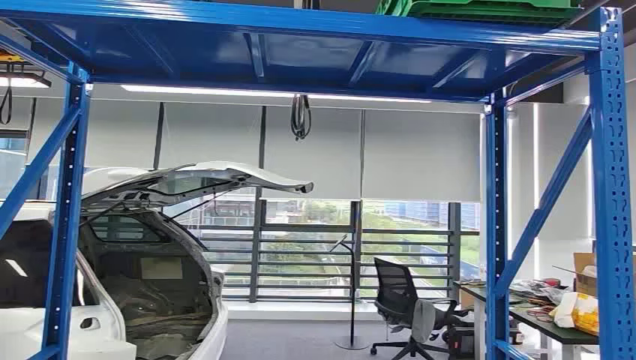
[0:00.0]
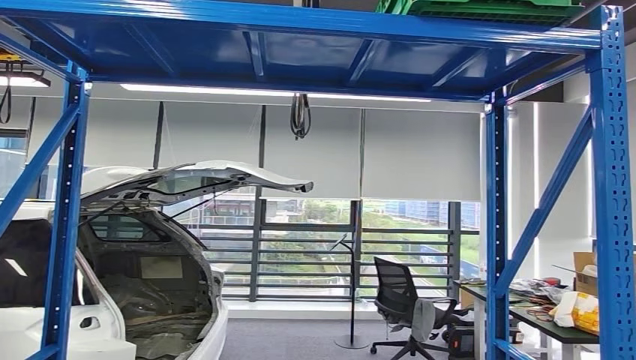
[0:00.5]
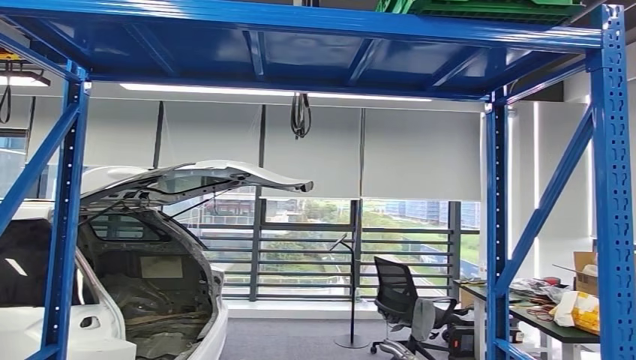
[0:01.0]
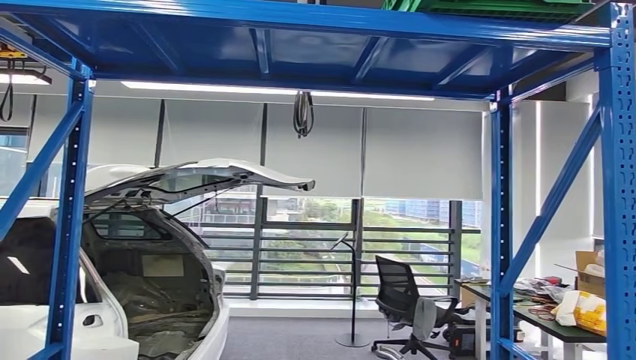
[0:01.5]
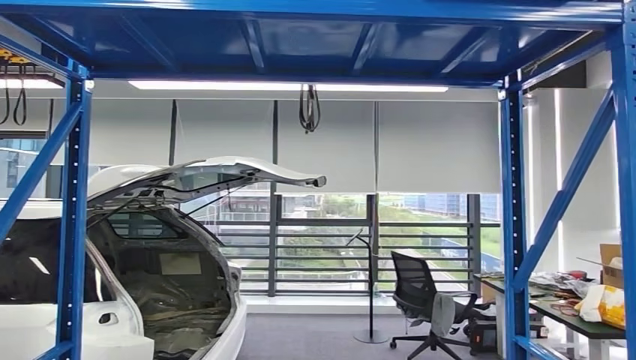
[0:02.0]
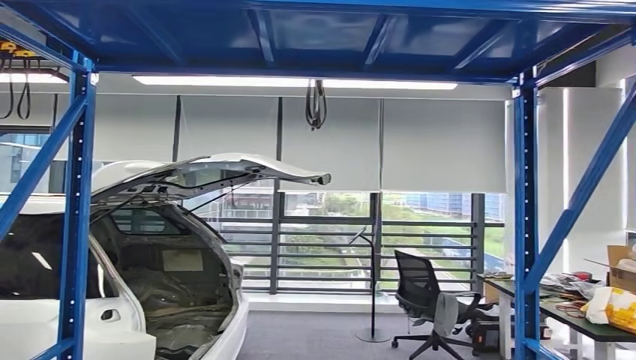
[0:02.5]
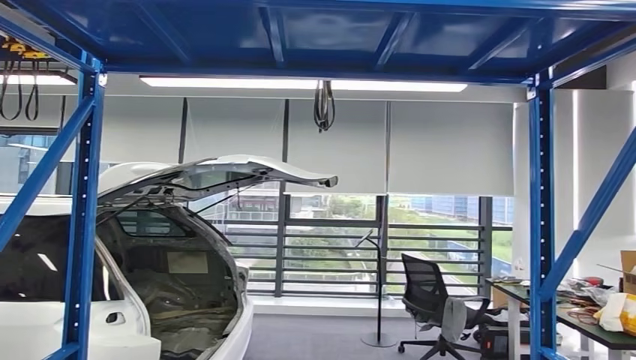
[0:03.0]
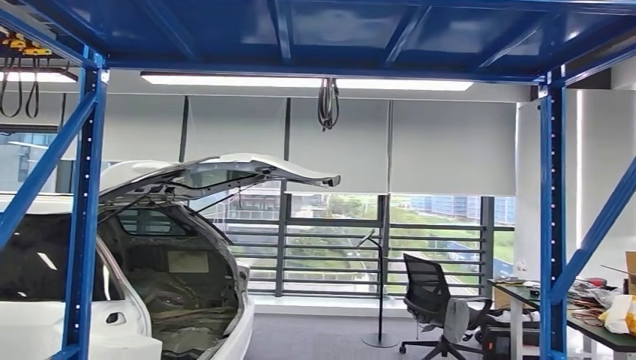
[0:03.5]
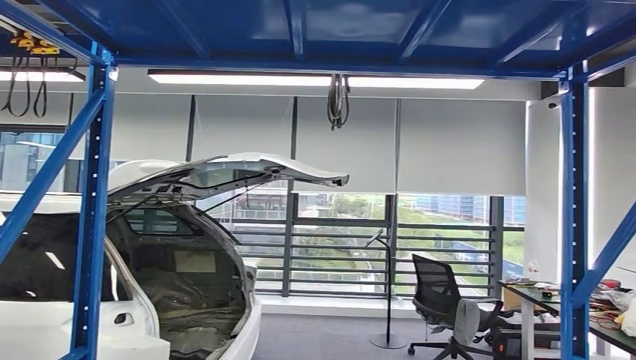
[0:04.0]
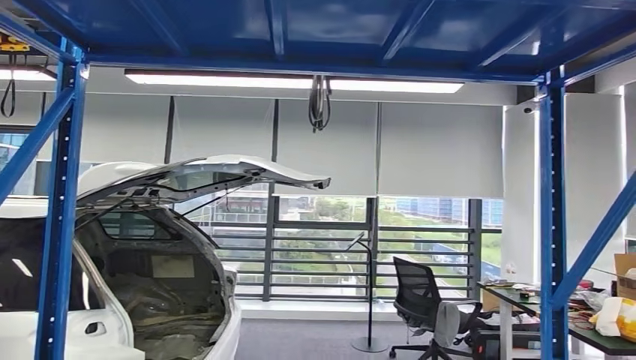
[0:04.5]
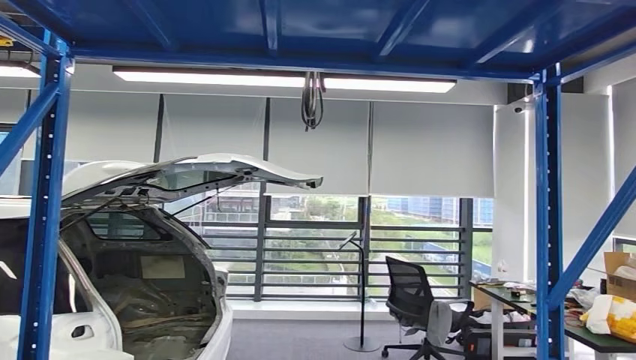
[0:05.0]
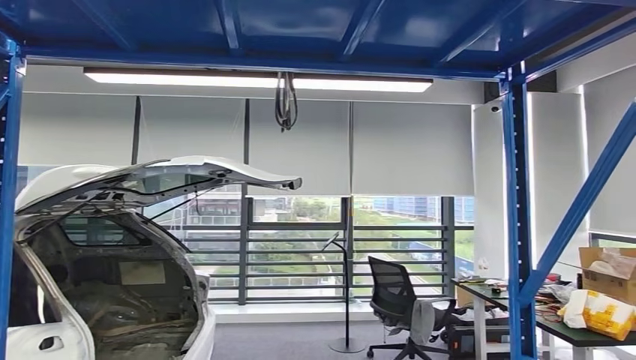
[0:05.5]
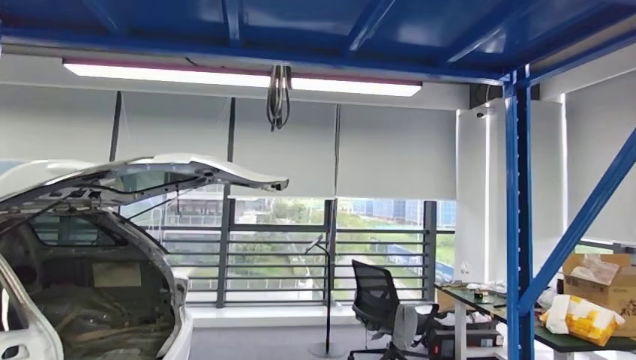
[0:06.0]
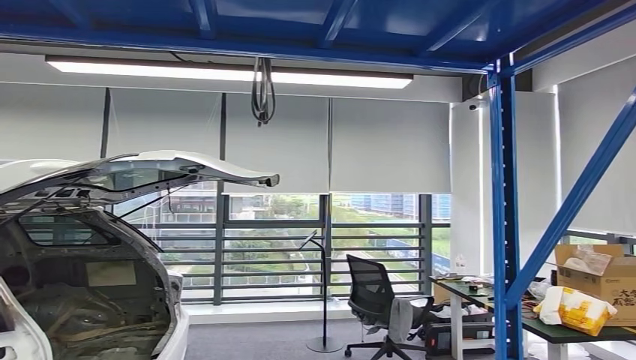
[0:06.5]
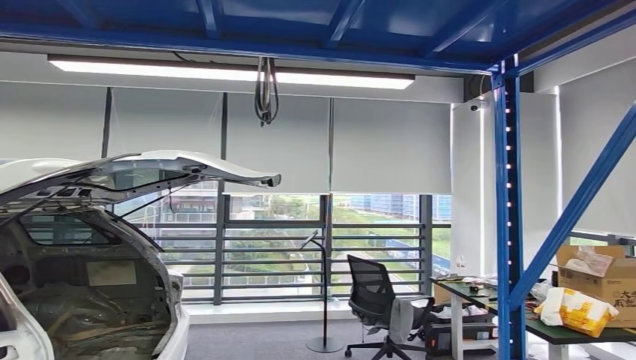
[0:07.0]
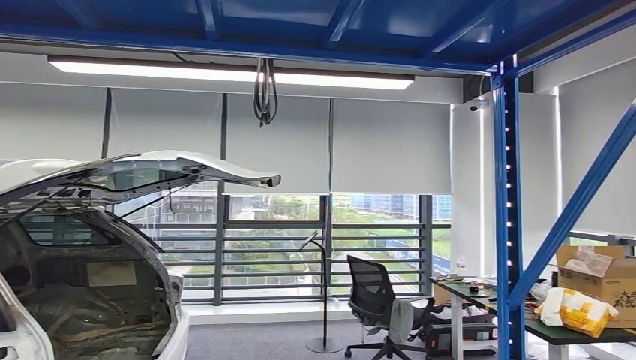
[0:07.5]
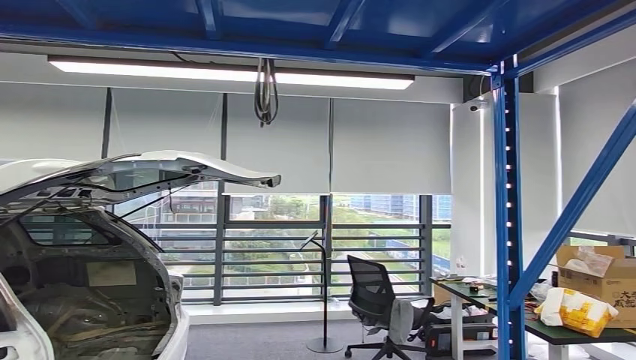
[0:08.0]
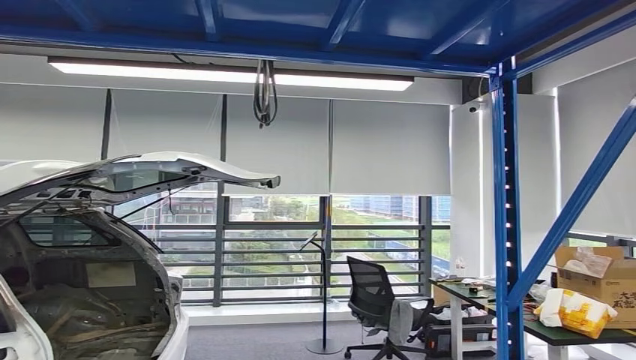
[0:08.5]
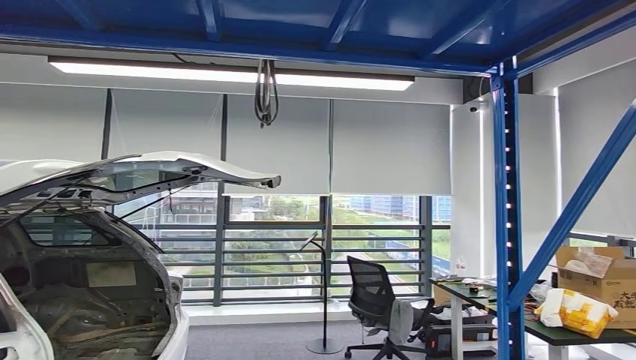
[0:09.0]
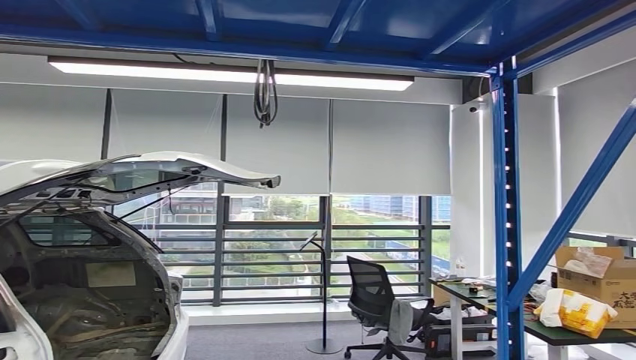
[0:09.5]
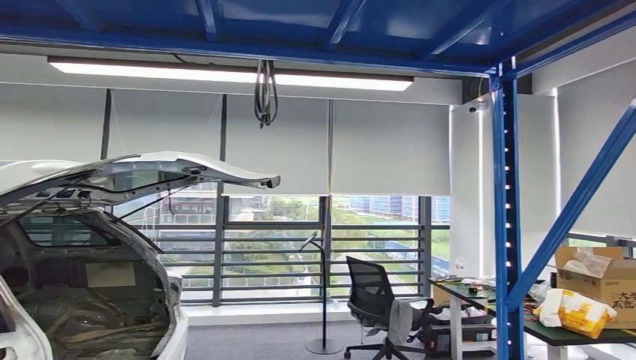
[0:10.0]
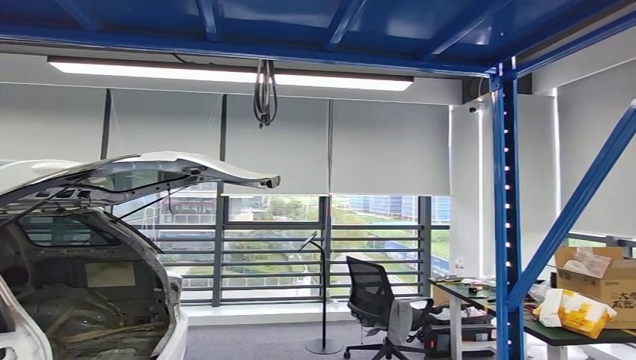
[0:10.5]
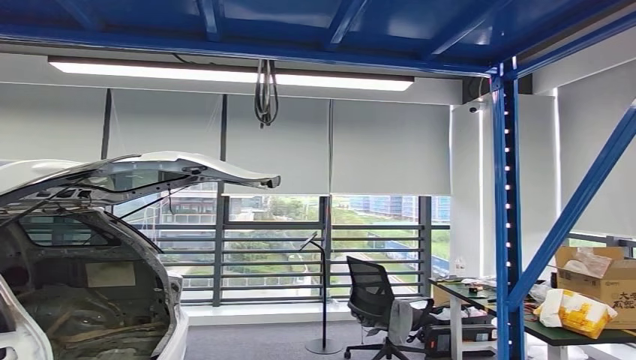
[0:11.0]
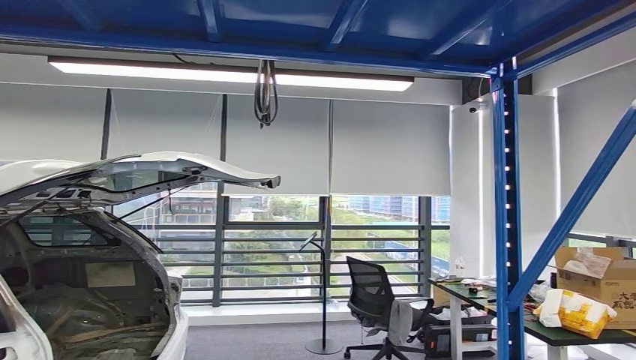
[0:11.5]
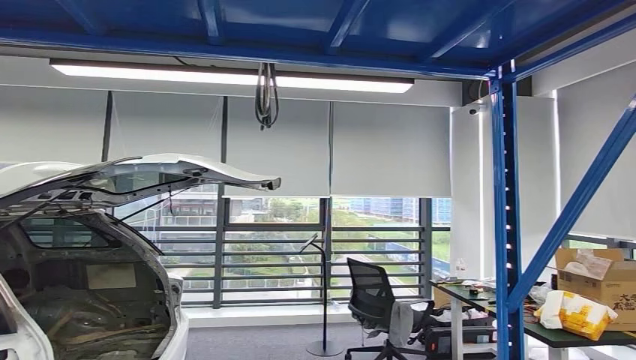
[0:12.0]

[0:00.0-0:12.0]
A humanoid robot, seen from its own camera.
0:08.0 to 0:10.0: The right hand shifts some 5 cm forward.
0:10.0 to 0:12.0: The right hand moves roughly 10 cm to the left and comes back.

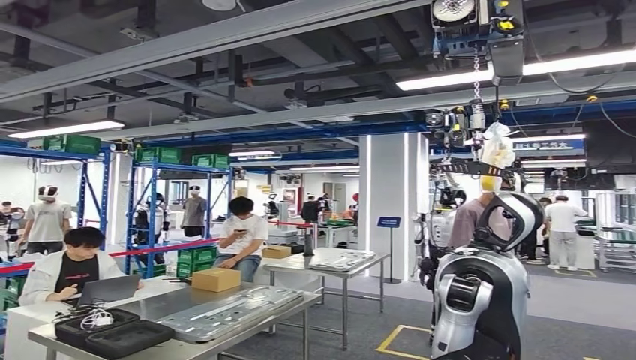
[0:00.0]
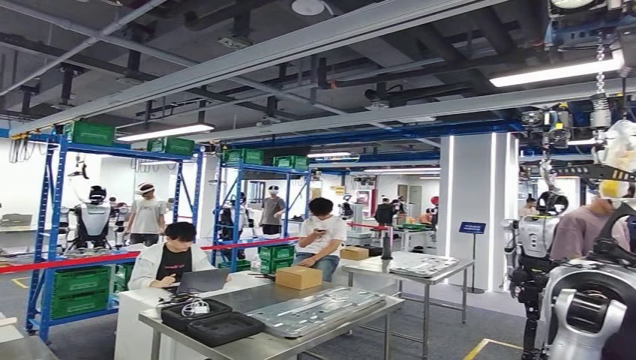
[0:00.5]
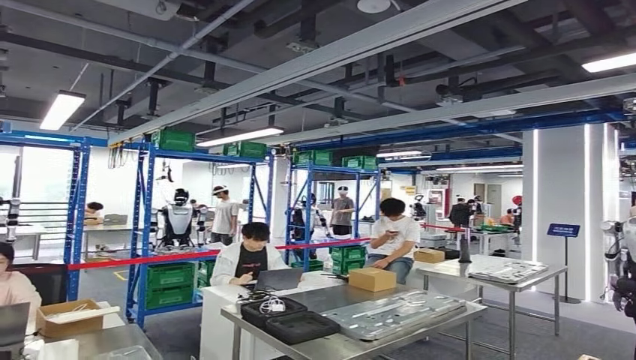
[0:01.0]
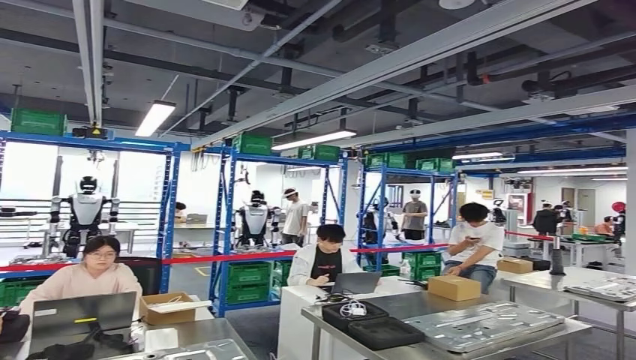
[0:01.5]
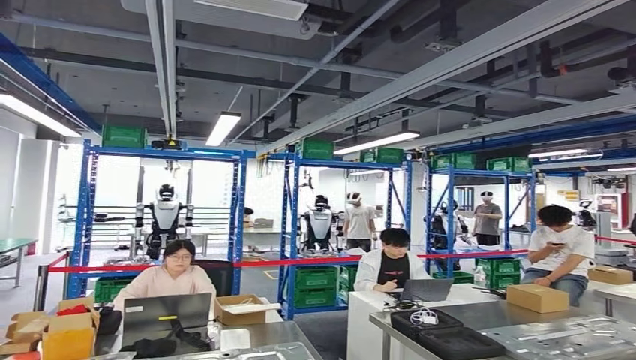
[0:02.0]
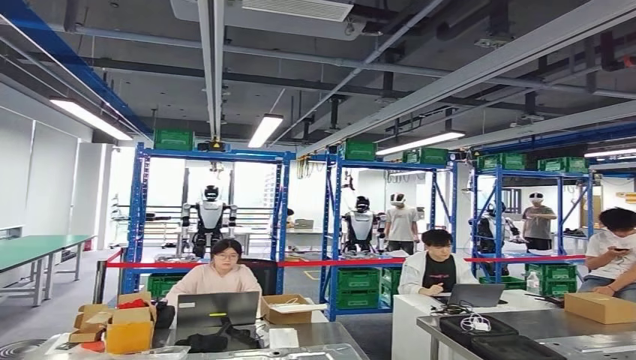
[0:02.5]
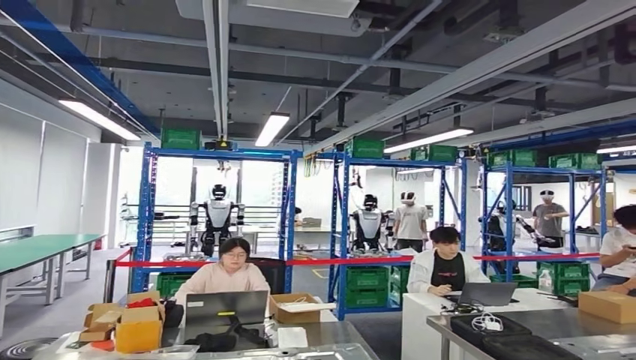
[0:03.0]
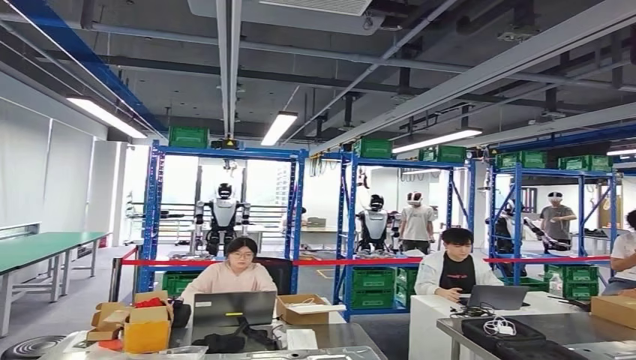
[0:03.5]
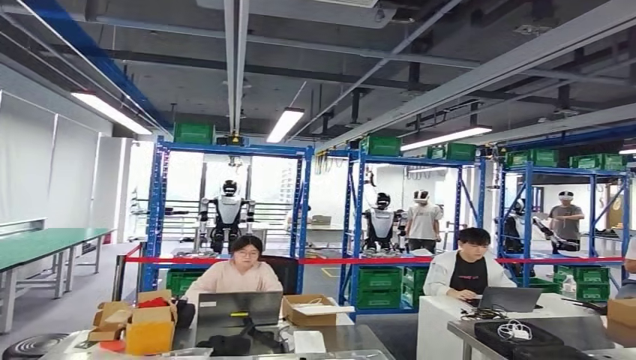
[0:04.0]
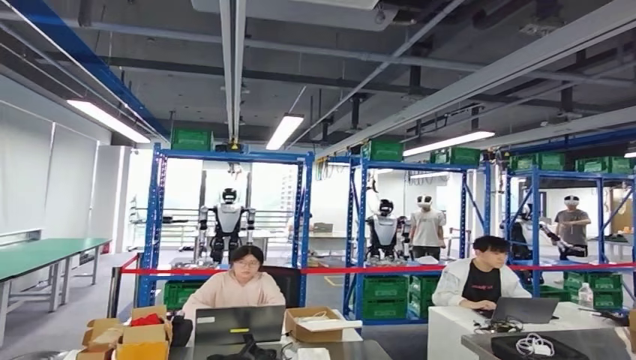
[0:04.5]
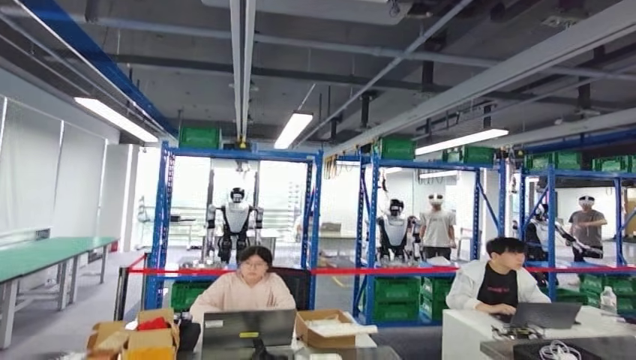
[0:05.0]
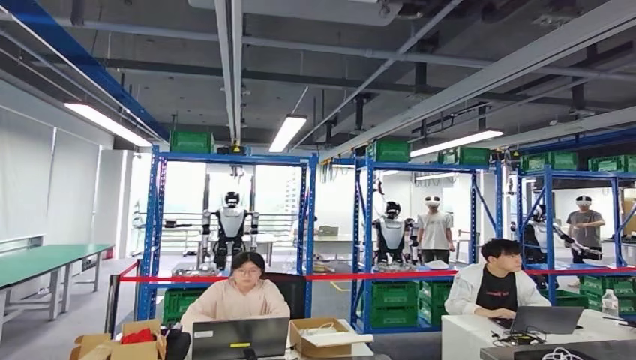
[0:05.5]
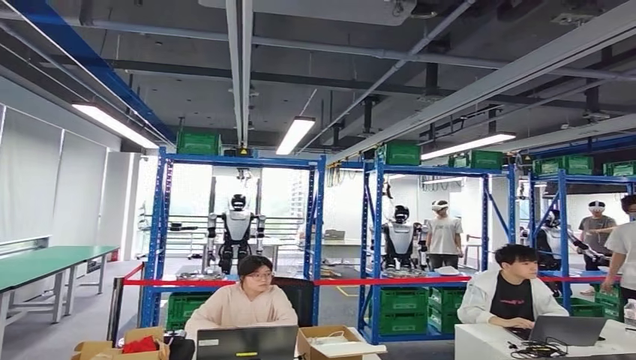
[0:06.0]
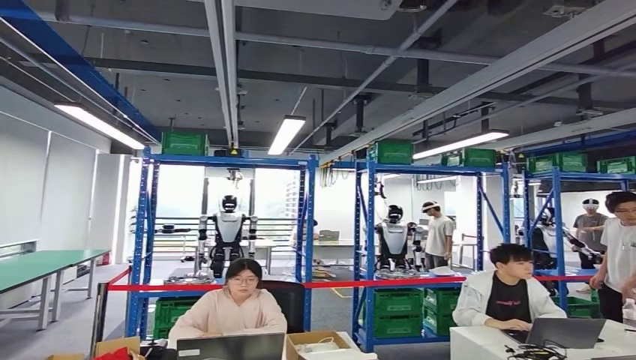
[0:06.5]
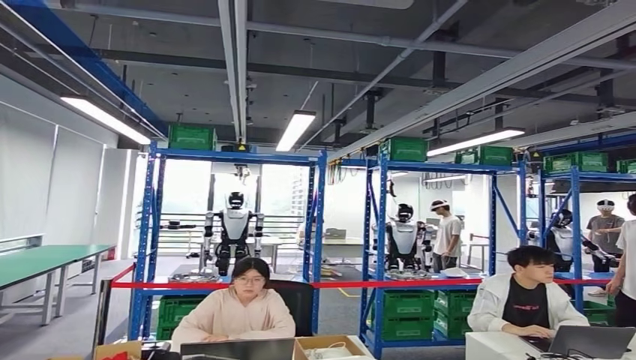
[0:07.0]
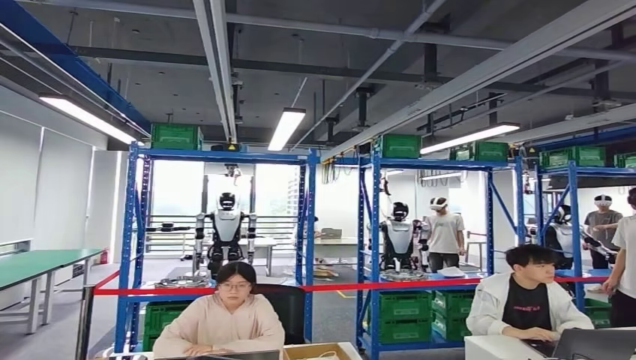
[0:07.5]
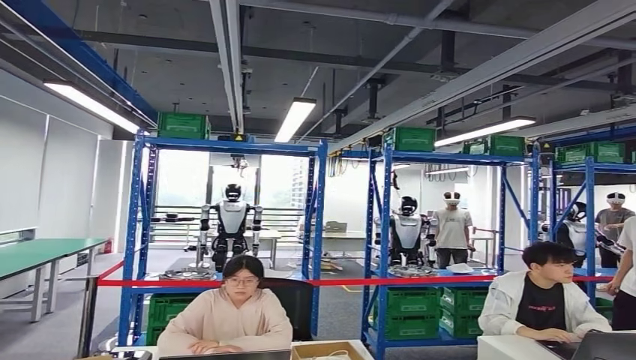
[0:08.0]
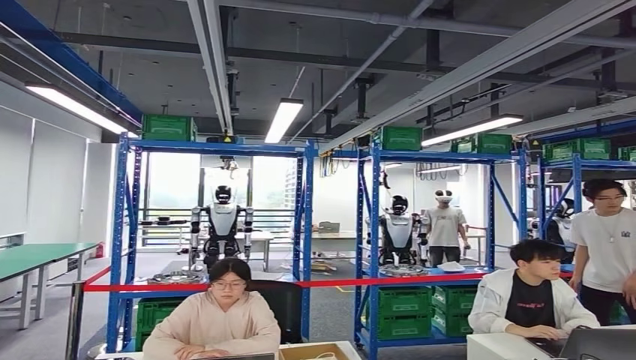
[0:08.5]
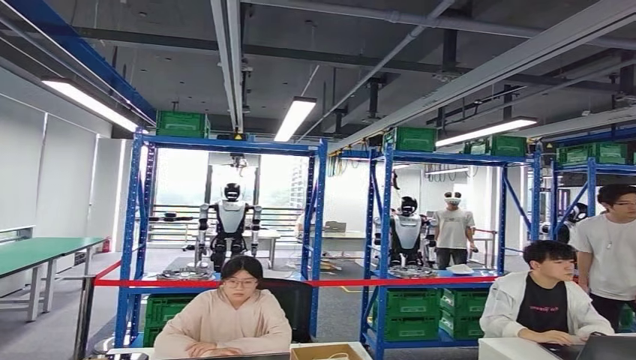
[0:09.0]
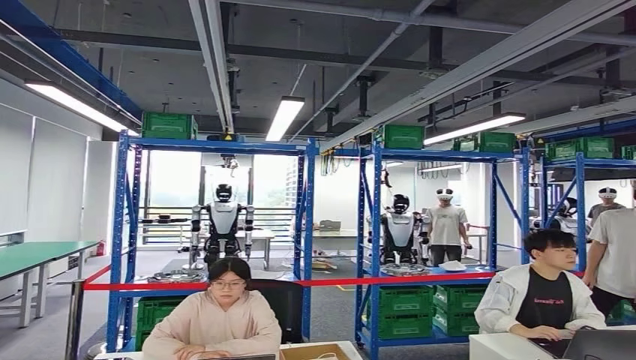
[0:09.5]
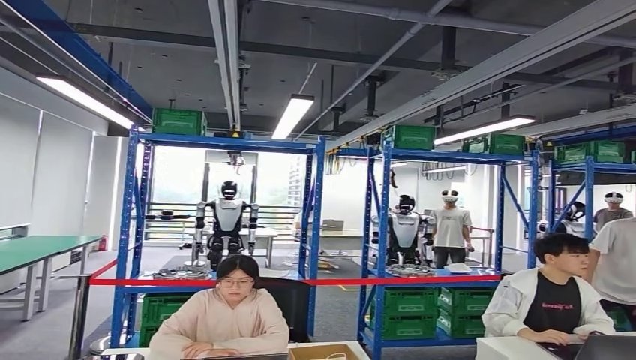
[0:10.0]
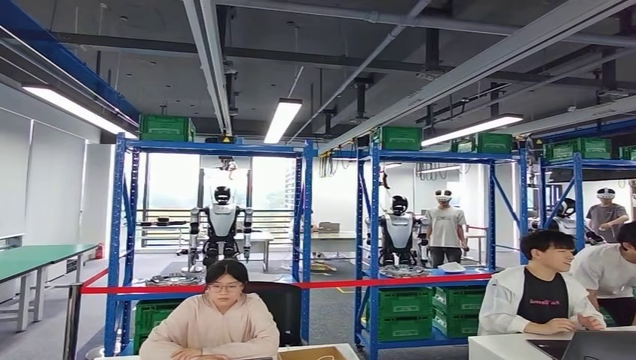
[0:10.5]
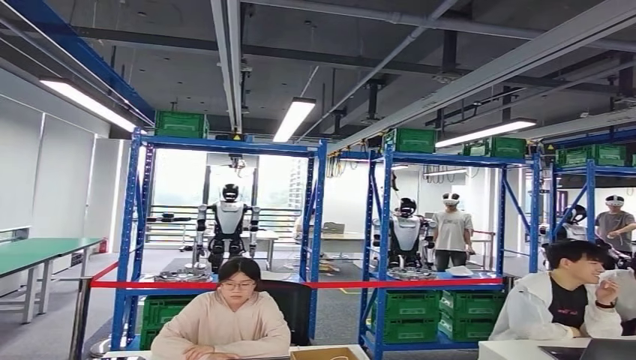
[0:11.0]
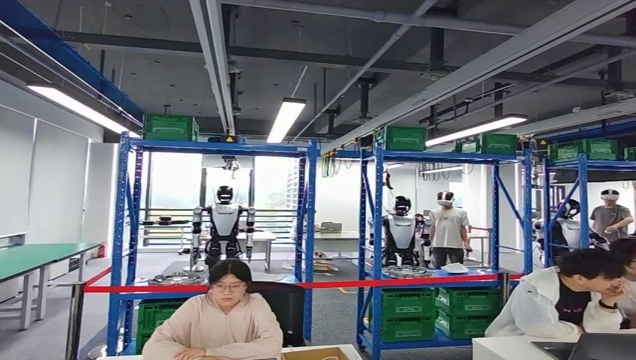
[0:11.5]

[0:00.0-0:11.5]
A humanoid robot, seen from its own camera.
Step, 0:00.0 to 0:08.0: Move the small parts to the workbench.
